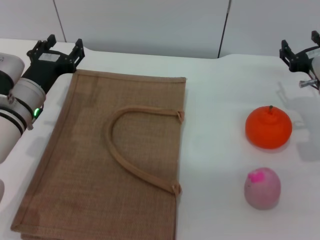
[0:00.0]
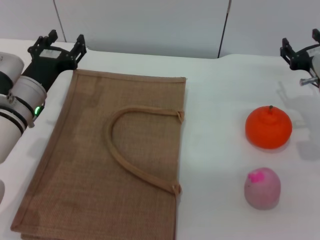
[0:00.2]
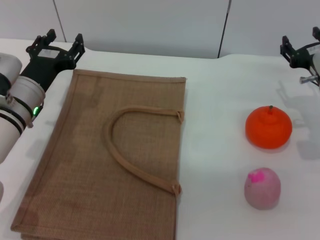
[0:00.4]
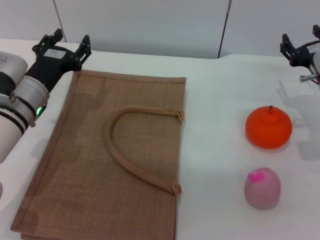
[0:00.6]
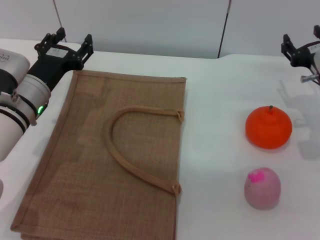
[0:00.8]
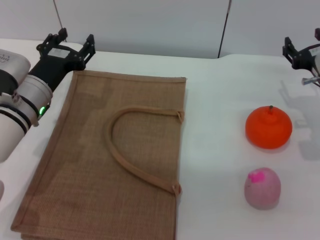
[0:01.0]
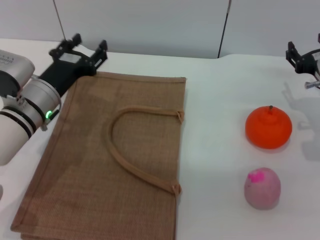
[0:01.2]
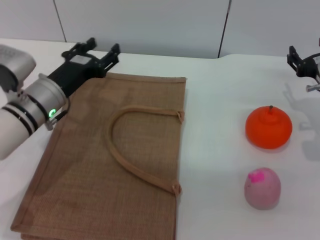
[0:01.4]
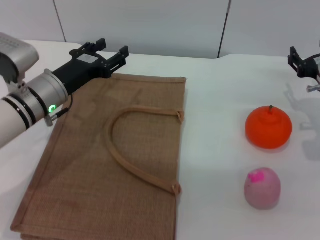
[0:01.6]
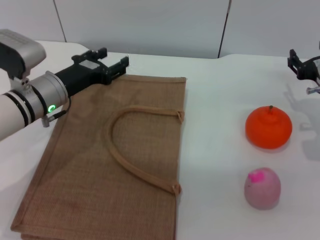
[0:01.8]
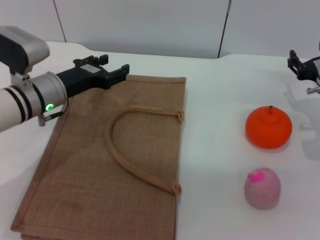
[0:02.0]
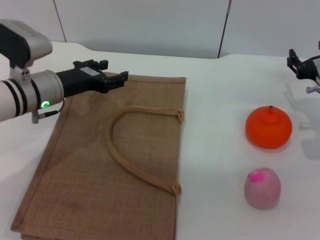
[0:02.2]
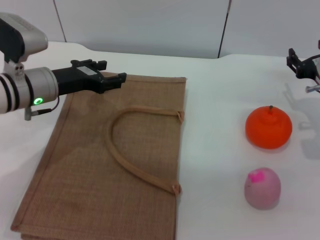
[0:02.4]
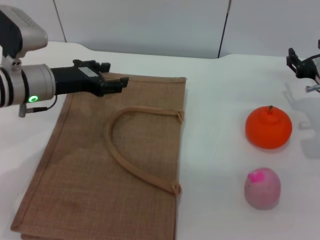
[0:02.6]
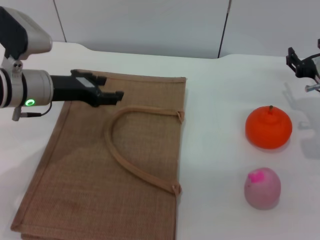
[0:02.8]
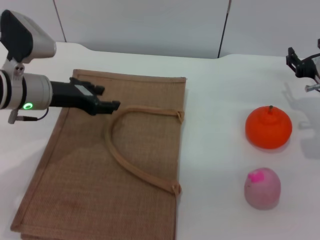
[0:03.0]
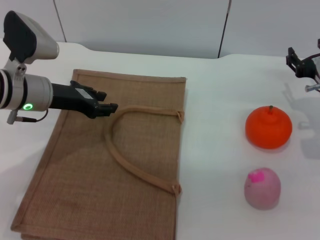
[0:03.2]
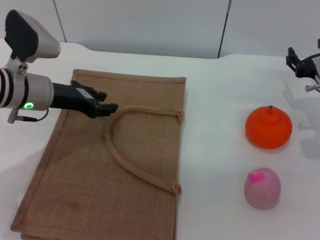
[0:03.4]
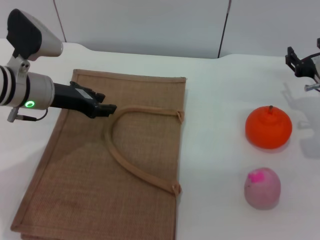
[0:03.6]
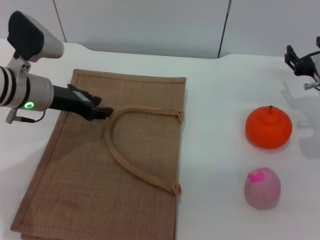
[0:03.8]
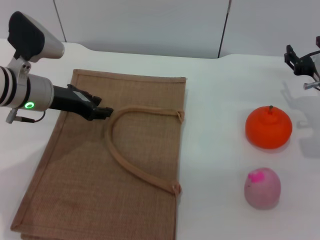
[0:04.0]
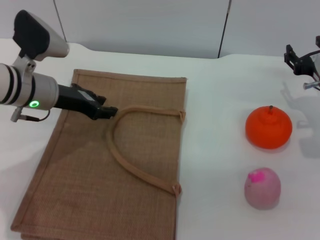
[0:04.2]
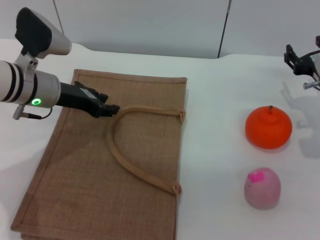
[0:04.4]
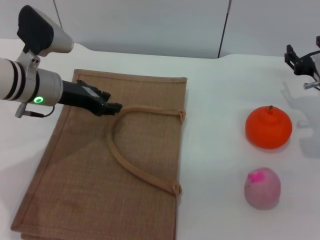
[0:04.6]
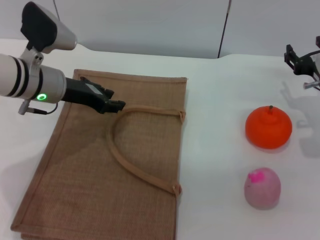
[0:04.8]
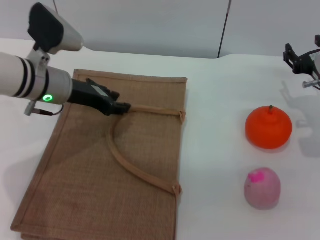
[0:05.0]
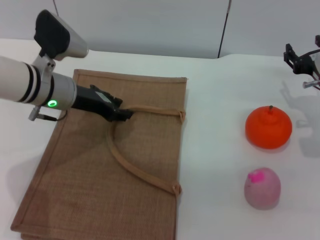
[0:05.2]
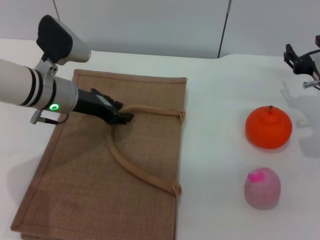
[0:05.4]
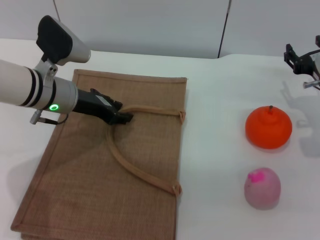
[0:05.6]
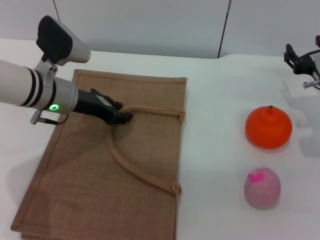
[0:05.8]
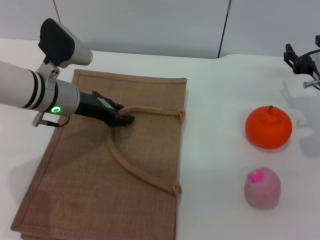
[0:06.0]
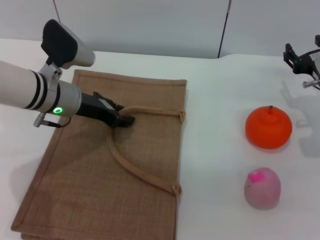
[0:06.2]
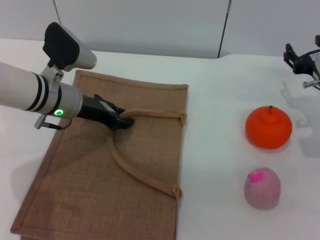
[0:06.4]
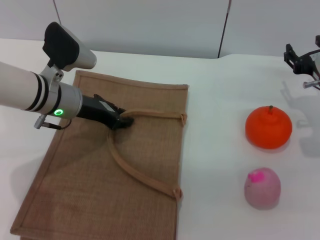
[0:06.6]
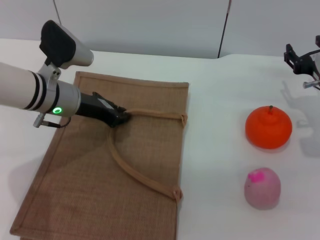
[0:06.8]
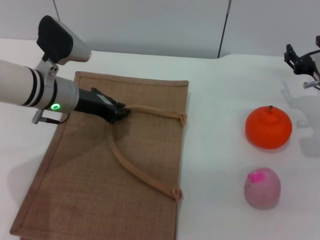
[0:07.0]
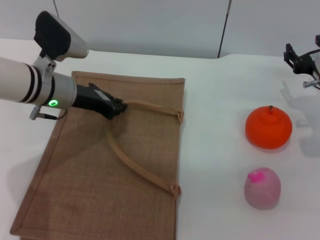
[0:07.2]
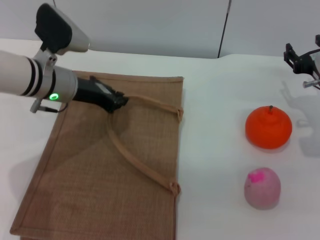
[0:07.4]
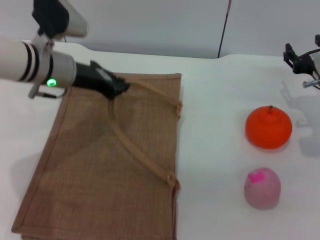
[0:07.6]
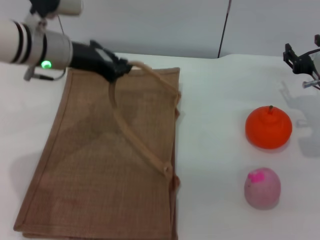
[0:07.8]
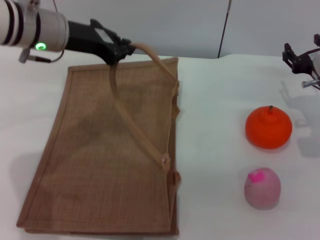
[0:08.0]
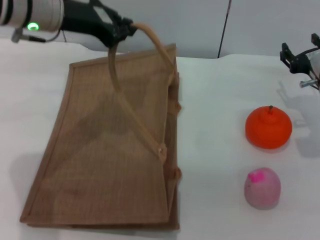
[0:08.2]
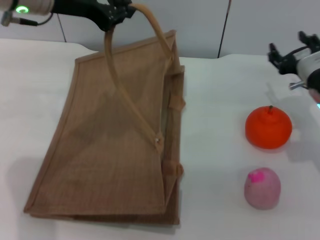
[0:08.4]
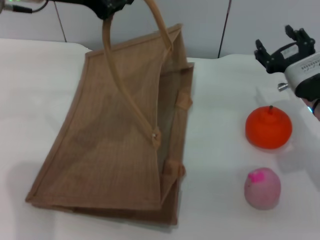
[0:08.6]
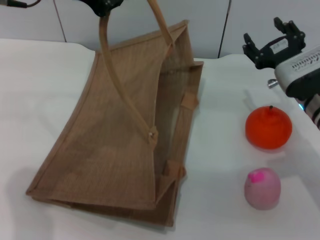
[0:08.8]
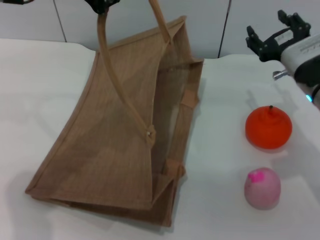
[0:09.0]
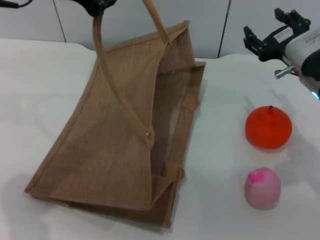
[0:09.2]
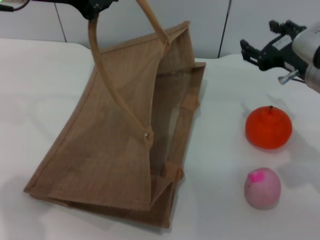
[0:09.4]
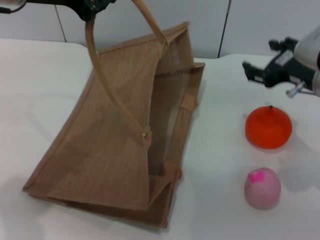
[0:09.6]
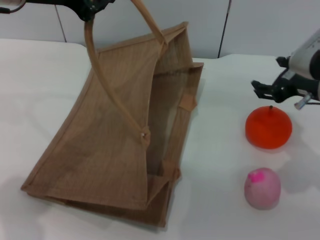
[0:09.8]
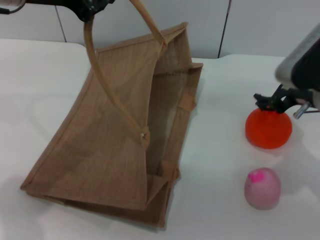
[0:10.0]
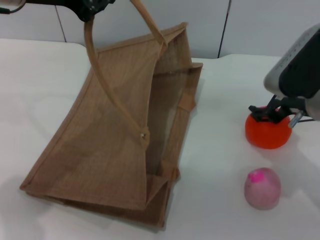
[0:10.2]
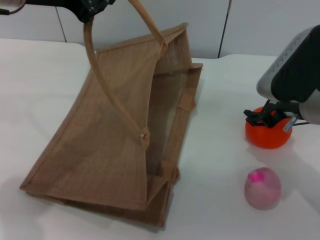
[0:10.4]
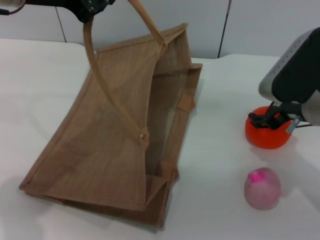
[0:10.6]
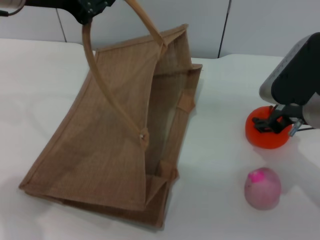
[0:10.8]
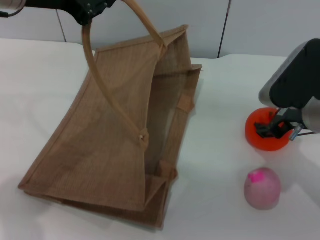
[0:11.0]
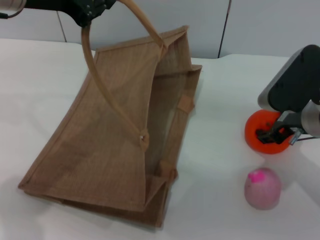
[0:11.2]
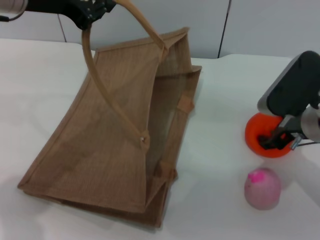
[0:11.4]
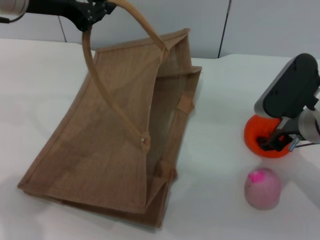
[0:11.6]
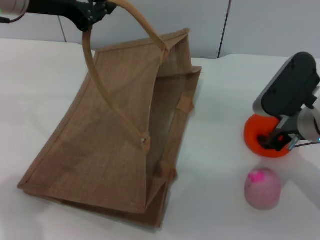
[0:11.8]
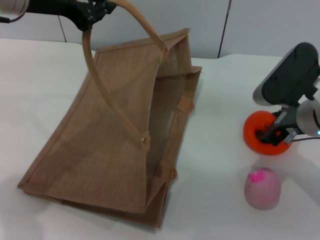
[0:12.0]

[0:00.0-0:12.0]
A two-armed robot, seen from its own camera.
Task of the whole recording: pick up the orange and peach from the table and place it in the brown handbag.
Step, 0:00.0 to 0:09.2: Lift the woven bag with the left gripper to open it.
0:03.0 to 0:06.0: The grippers make only small movements.
0:06.0 to 0:07.6: The left gripper closes.
0:07.6 to 0:09.0: The right gripper is displaced to the left and upward by approximately 10 cm. Meanwhile the left gripper moves upward, roughly 15 cm.
0:09.0 to 0:10.4: The right gripper moves about 5 cm.
0:10.4 to 0:12.0: There are only small adjustments of the grippers.

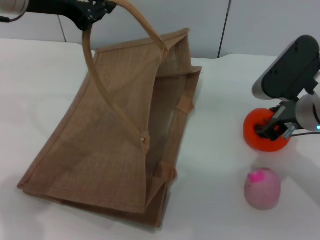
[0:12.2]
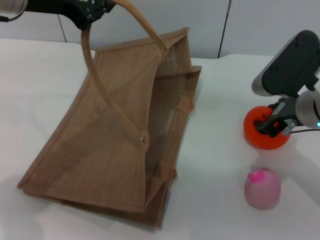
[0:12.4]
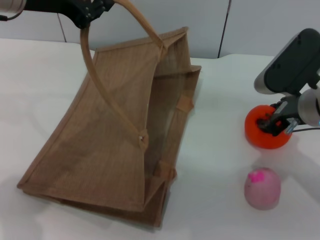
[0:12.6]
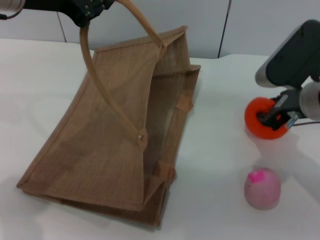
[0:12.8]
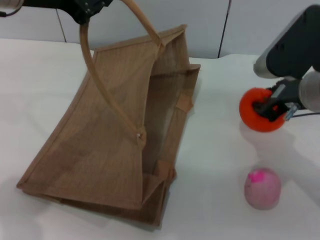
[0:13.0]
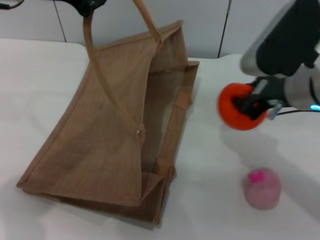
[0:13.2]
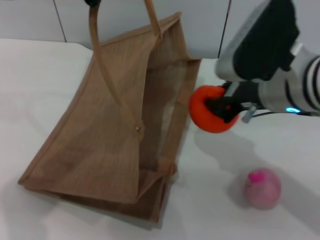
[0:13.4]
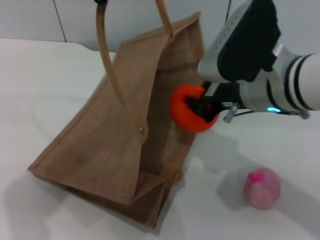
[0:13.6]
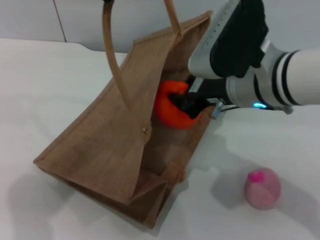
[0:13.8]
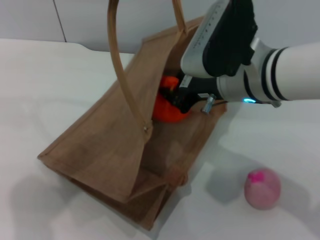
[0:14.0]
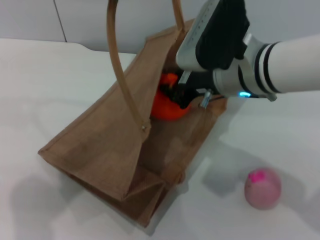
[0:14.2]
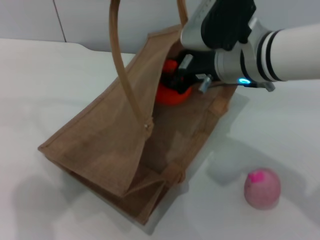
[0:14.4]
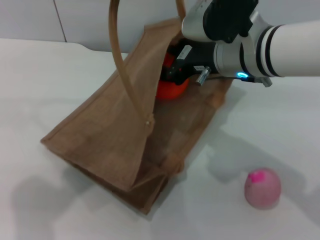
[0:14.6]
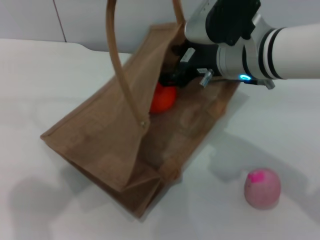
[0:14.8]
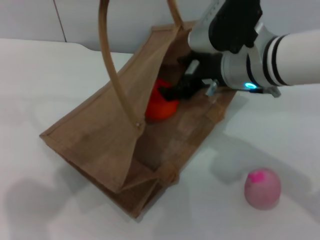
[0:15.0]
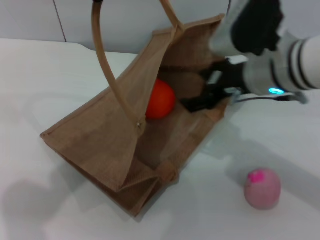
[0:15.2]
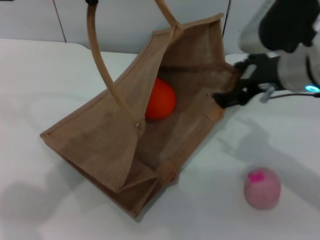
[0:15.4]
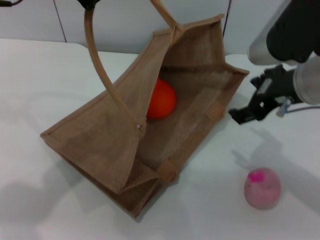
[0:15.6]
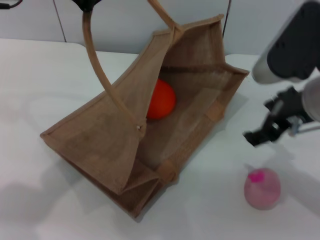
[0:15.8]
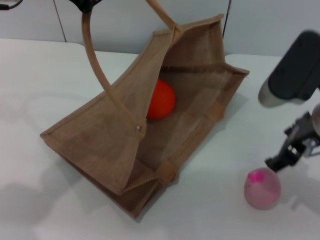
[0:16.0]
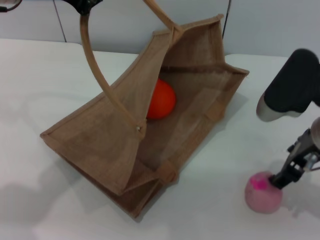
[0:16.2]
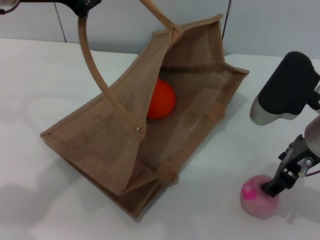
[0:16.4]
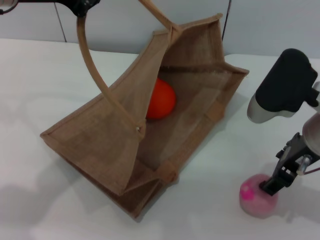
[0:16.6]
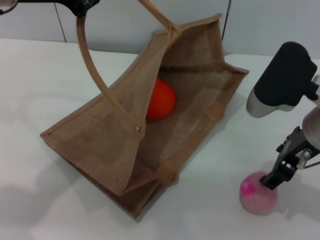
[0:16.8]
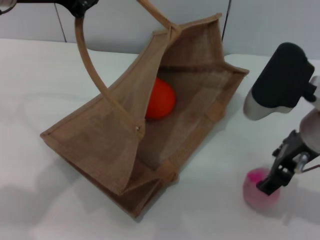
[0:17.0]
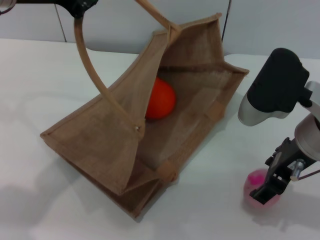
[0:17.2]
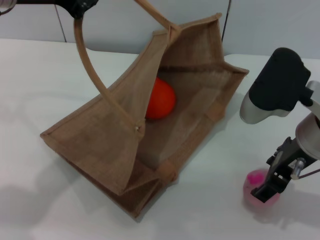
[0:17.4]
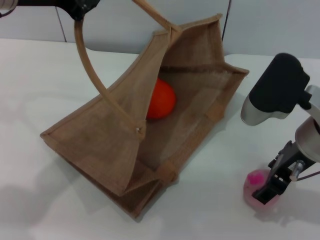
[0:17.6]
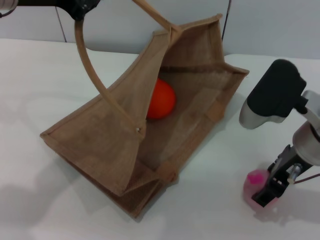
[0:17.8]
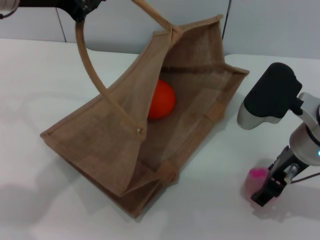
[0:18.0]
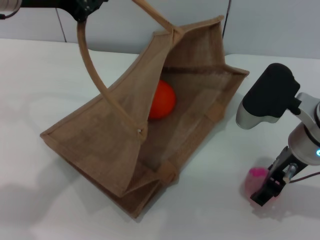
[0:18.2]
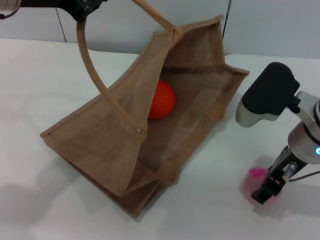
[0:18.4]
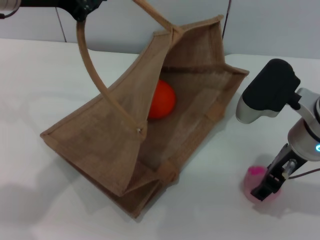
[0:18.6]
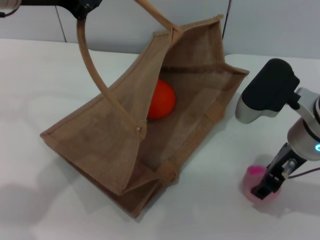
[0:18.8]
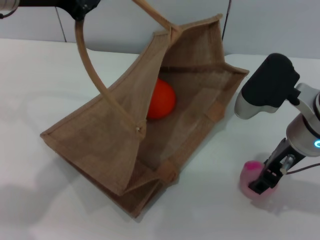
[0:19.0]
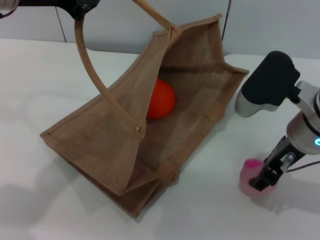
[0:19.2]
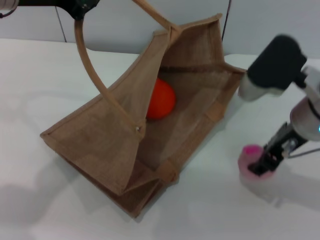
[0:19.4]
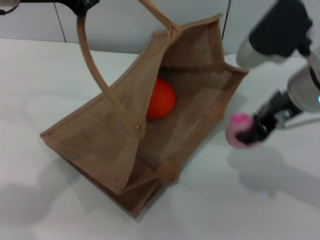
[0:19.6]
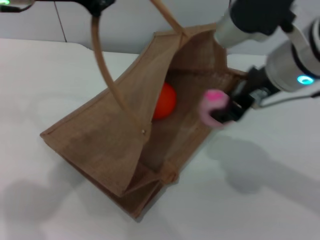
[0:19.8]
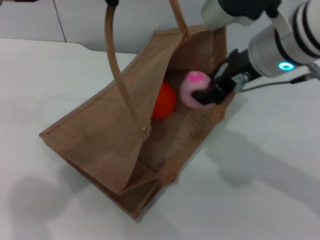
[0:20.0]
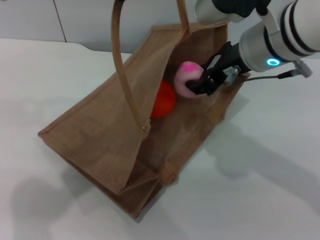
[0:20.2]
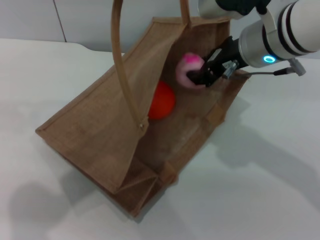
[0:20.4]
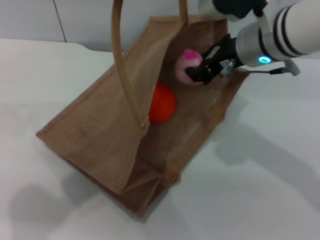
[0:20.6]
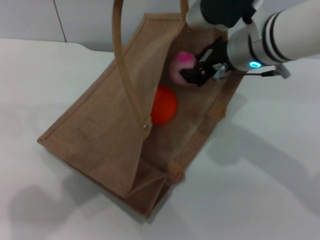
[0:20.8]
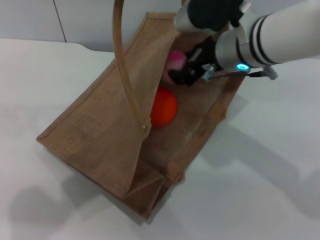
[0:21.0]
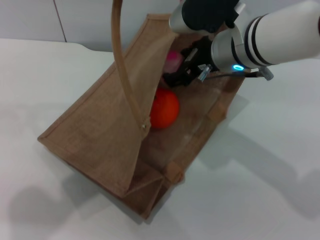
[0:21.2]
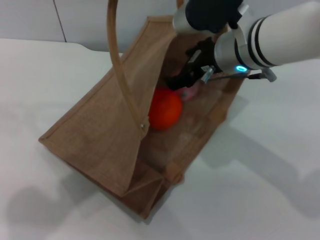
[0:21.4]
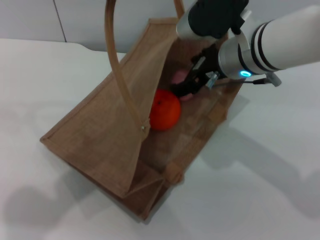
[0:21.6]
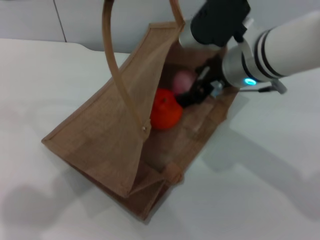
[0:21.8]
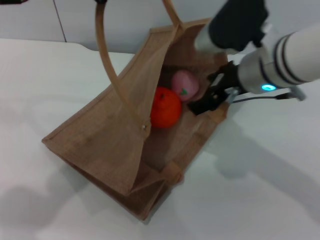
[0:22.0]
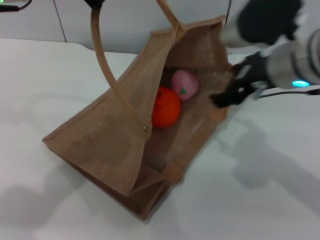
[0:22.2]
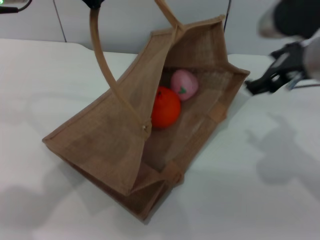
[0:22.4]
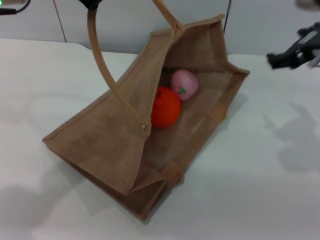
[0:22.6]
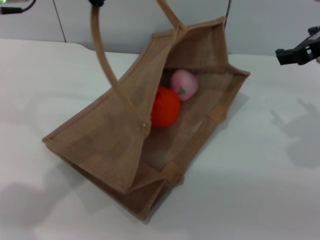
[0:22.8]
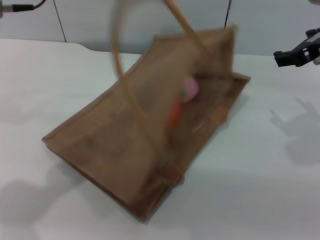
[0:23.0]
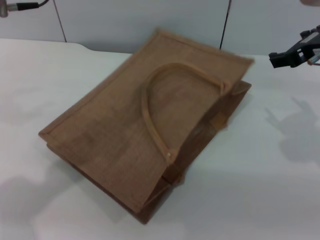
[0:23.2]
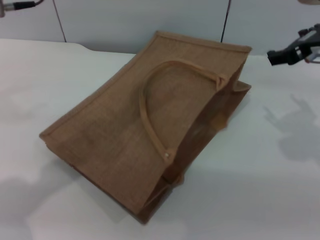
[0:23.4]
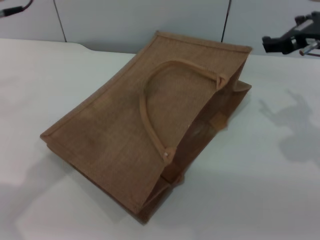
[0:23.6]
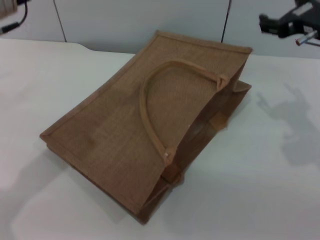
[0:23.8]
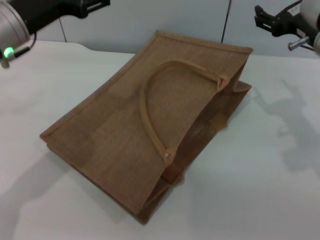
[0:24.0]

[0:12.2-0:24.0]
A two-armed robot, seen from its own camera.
Task of the whole recording: pick up the orange and peach from the table and place it in the brown handbag.
Step, 0:13.2 to 0:15.0: Place the orange into the woven bag with the right gripper.
Step, 0:15.2 to 0:19.2: Pick up the peach with the right gripper.
Step, 0:19.4 to 0:22.0: Place the peach into the woven bag with the right gripper.
Step, 0:22.2 to 0:23.4: Lower the woven bag with the left gripper to close it.
0:12.2 to 0:13.6: The right gripper moves to the left and upward, approximately 10 cm, and closes.
0:13.6 to 0:15.2: The right gripper opens.
0:15.2 to 0:16.6: The right gripper goes about 5 cm backward.
0:16.6 to 0:18.2: The grippers make only small movements.
0:18.2 to 0:19.6: The right gripper goes about 5 cm upward, and closes.
0:19.6 to 0:21.0: The right gripper is displaced to the left and forward by approximately 10 cm, while the left gripper ends up some 5 cm from where it was.
0:21.0 to 0:22.6: The left gripper changes place by approximately 5 cm, while the right gripper moves to the right, approximately 10 cm, and opens up.
0:22.6 to 0:24.0: The left gripper is displaced downward by roughly 10 cm, and opens up. The right gripper is displaced downward by some 5 cm.
